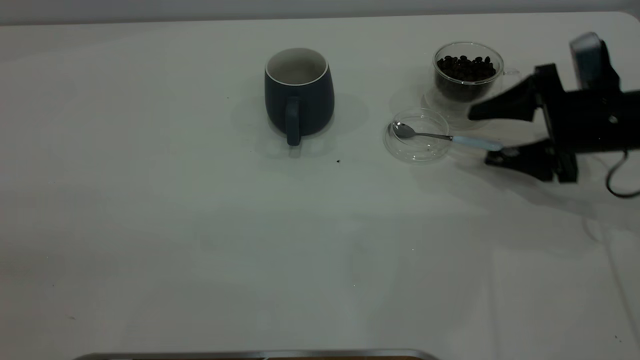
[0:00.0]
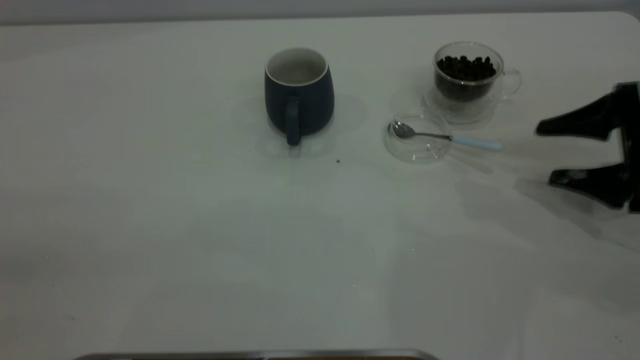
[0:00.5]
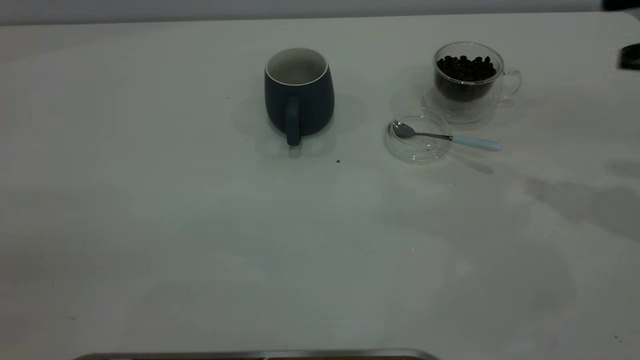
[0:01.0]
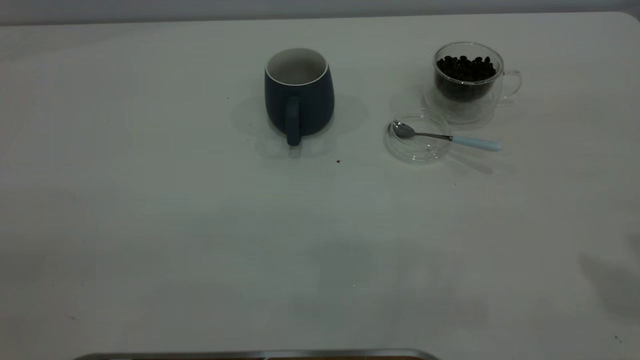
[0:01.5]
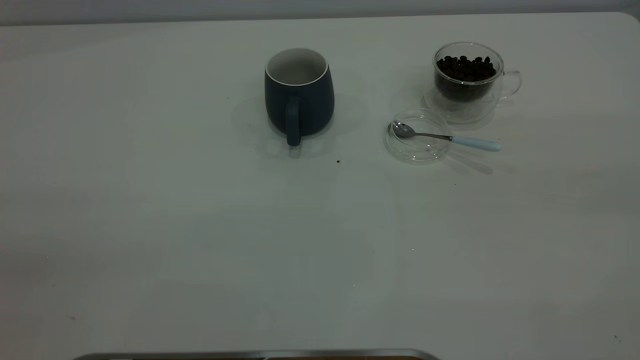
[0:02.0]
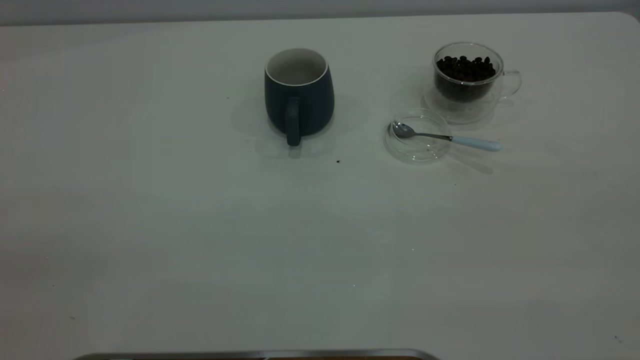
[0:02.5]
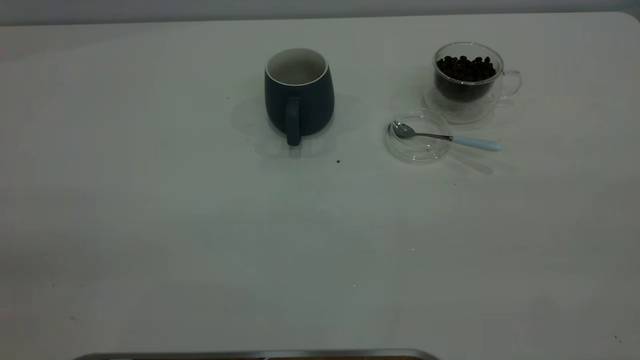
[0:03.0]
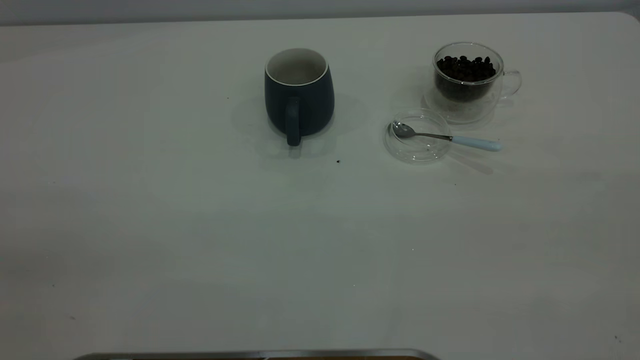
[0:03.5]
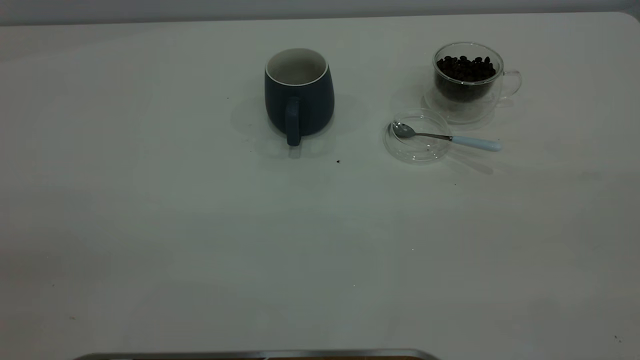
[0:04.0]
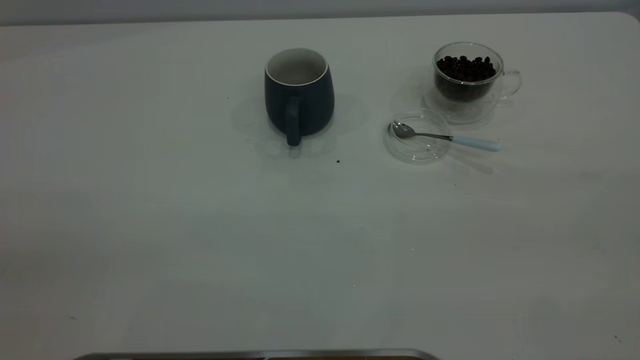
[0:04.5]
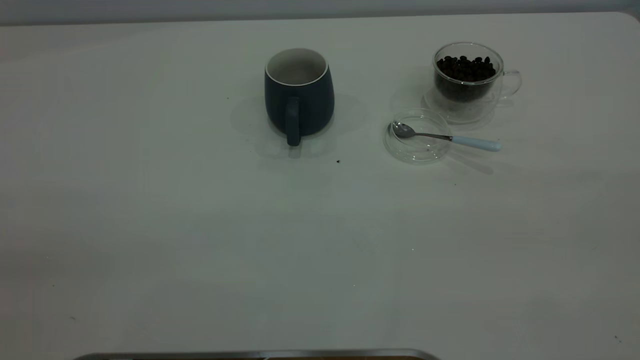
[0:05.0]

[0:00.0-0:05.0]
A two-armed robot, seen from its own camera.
Task of the whole recording: the left gripper place the grey cup in the center of the table, the right gripper take the blue spoon from the cup lid and scoop out the coffee beans from the coffee cup and put them into the grey cup, the right gripper put the spoon back into the cup lid.
0:00.0 to 0:02.5: The right gripper heads backward and upward, covering about 50 cm.

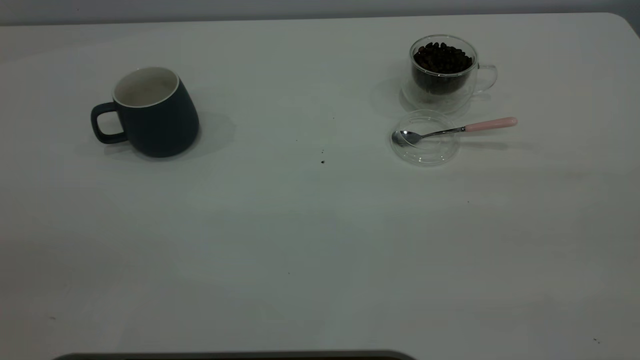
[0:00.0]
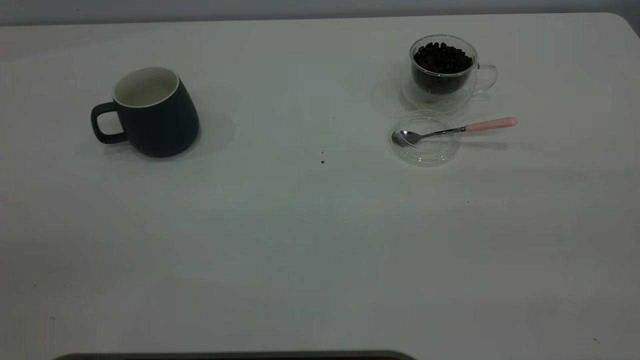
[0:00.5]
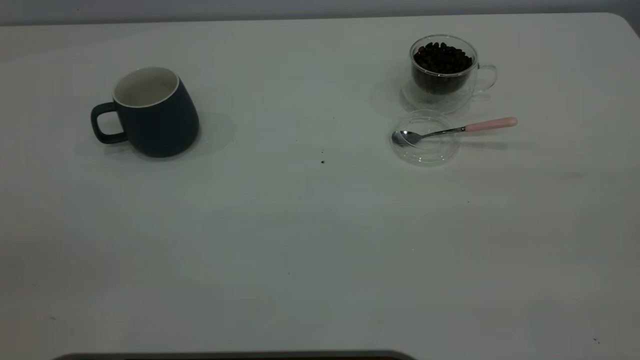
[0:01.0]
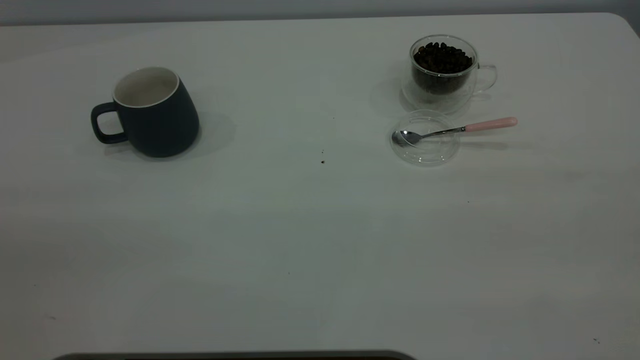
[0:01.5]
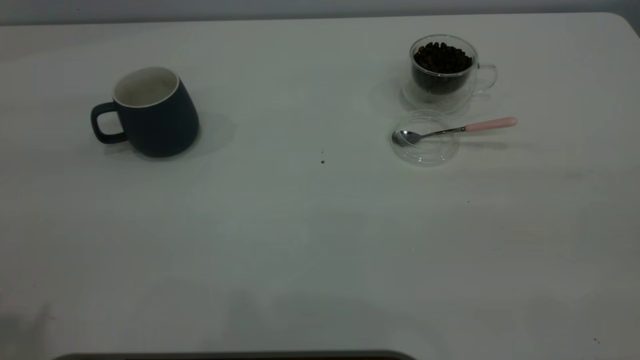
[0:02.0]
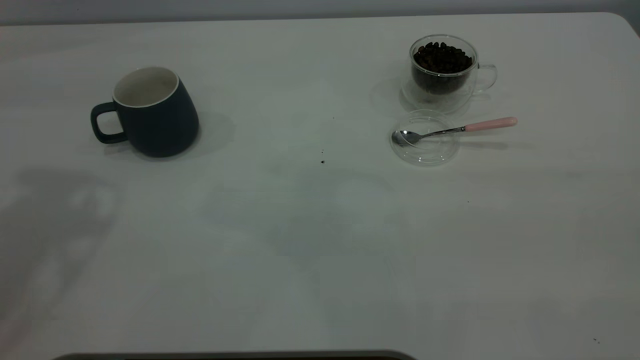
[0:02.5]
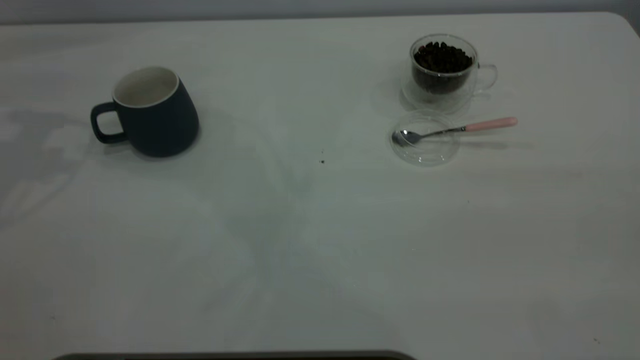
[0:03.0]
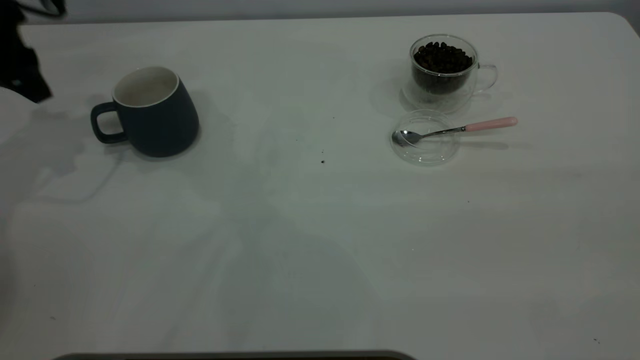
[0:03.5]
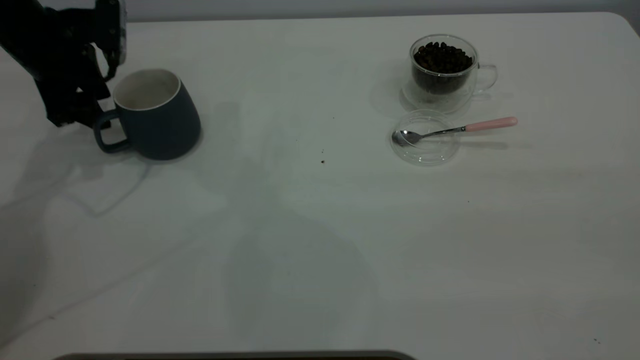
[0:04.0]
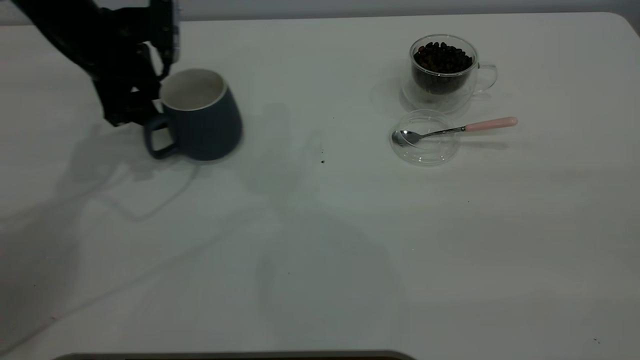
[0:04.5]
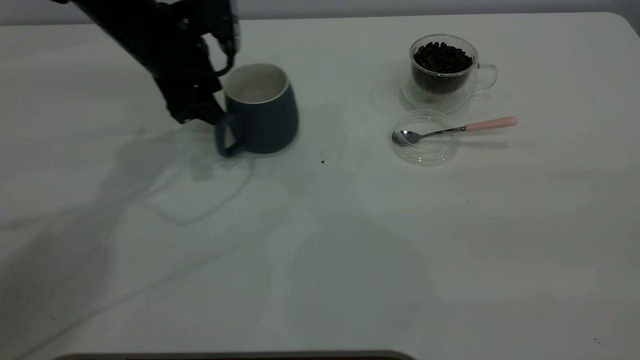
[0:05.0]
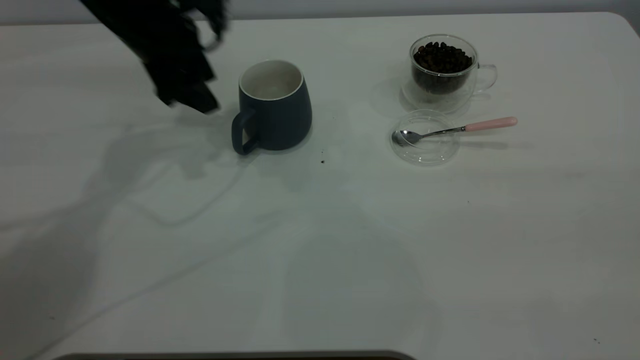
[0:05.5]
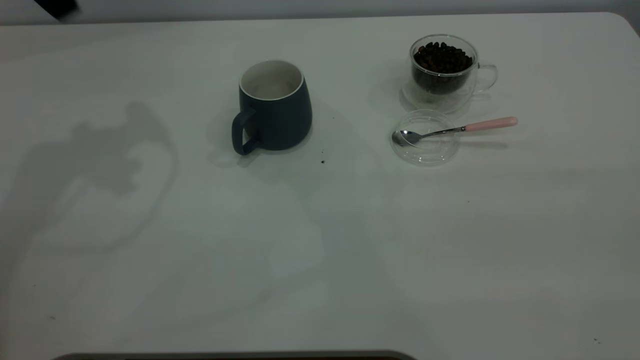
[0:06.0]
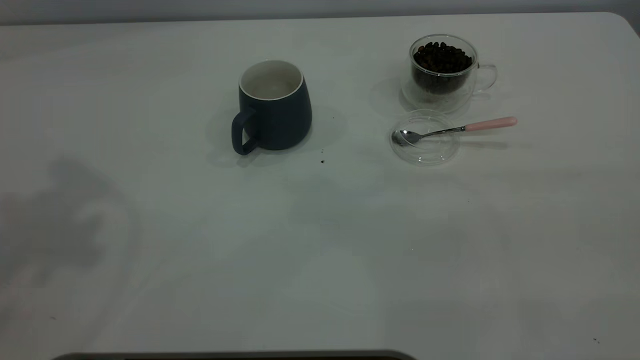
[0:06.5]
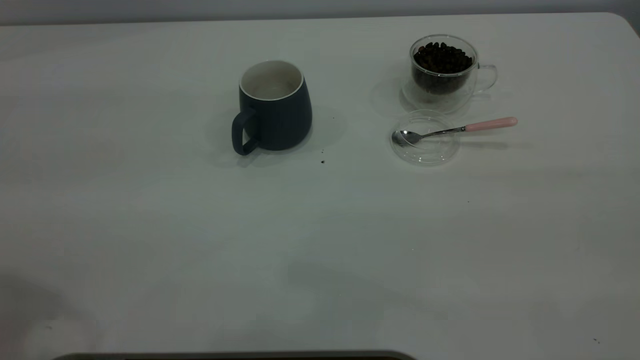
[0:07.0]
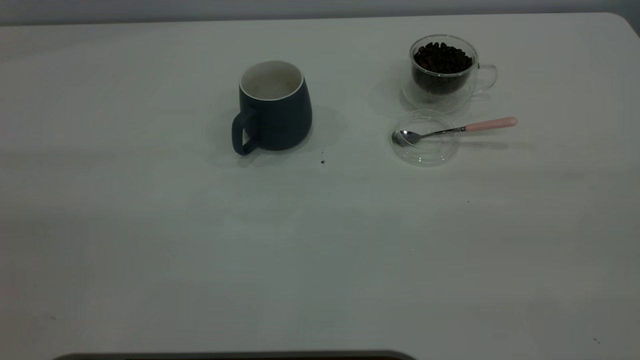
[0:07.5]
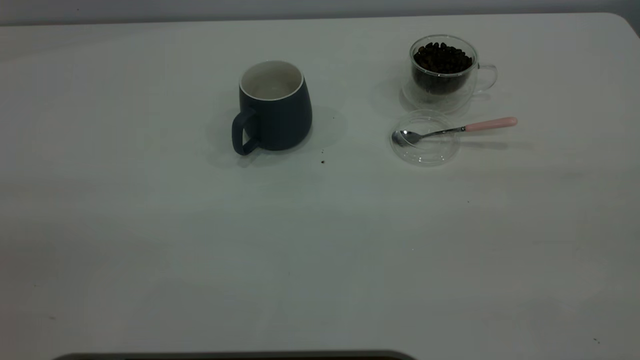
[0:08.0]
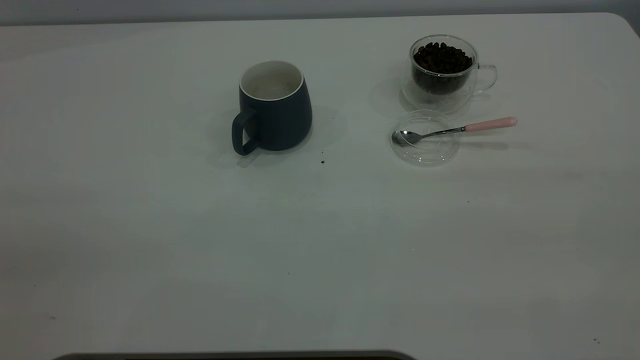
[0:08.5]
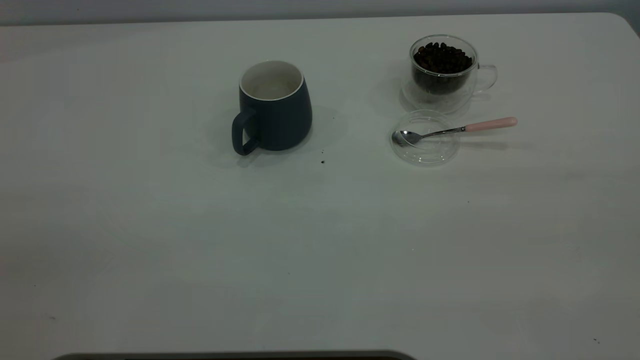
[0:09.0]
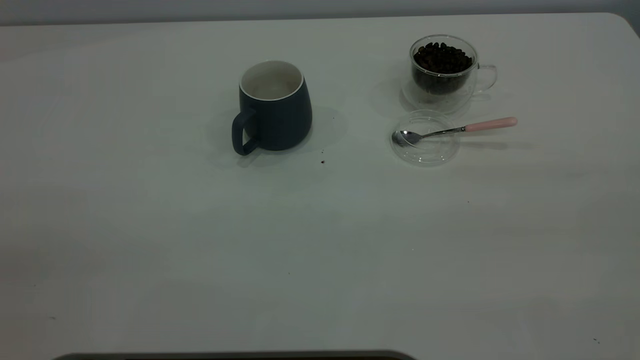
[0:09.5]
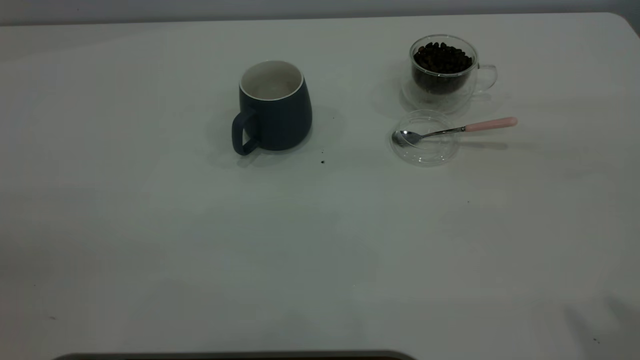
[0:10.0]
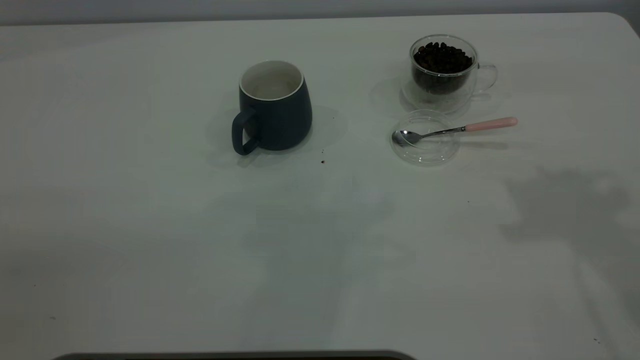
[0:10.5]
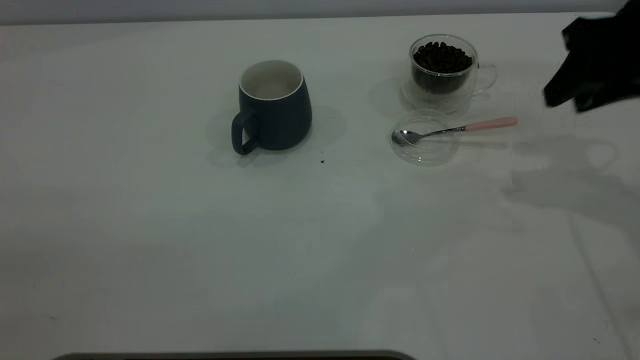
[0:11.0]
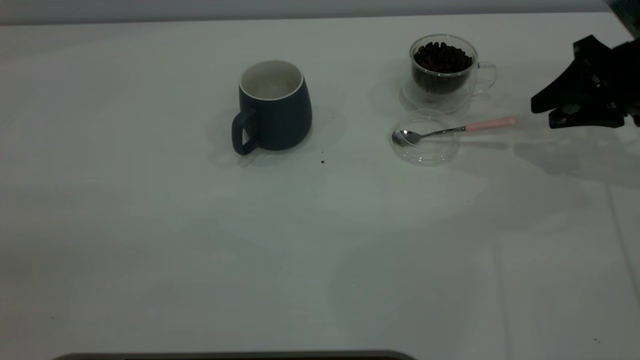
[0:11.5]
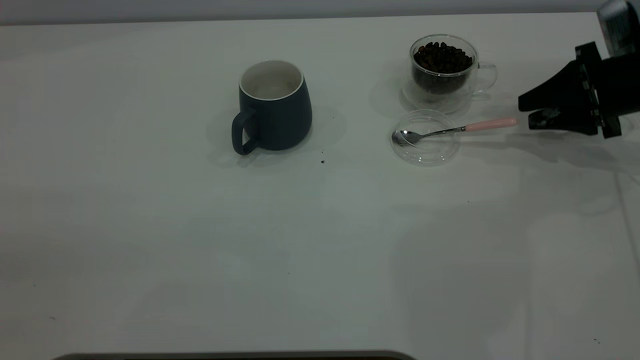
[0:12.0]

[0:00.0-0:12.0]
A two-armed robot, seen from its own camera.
Task of the whole recording: the left gripper place the grey cup in the center of the table, the right gripper take the pink spoon from the cup lid and scoop out the coffee beans from the coffee cup and put them into the grey cup, the right gripper put the spoon back into the cup lid.
Step, 0:00.0 to 0:05.0: Move the cup to the center of view.
0:02.0 to 0:04.0: The left gripper shifts about 40 cm forward and downward.
0:04.0 to 0:06.0: The left gripper goes about 20 cm upward.
0:10.0 to 0:12.0: The right gripper travels downward and forward by about 40 cm.

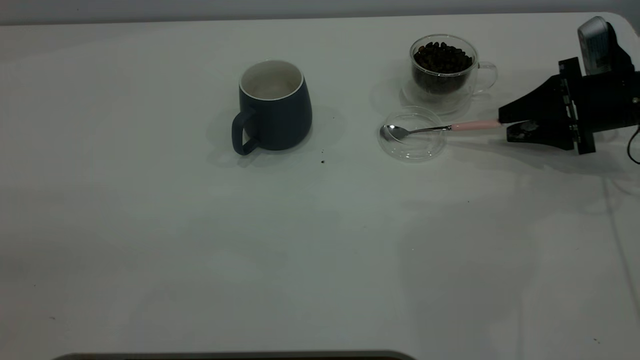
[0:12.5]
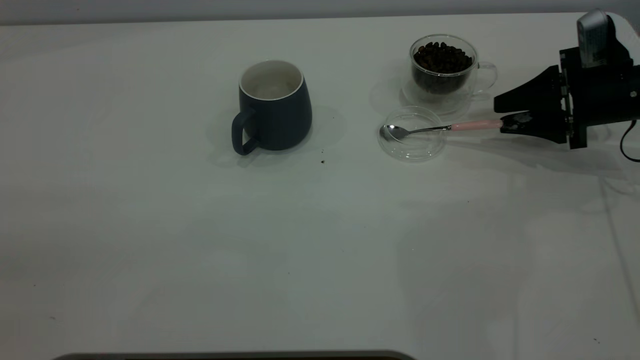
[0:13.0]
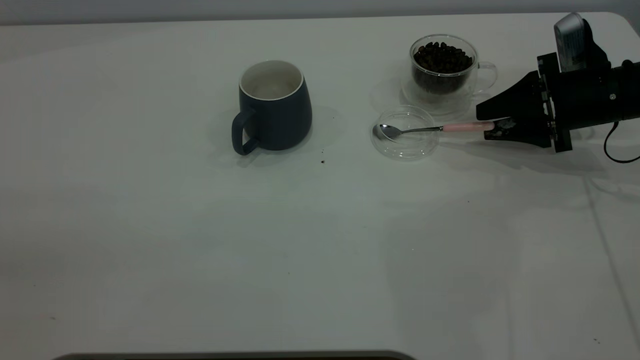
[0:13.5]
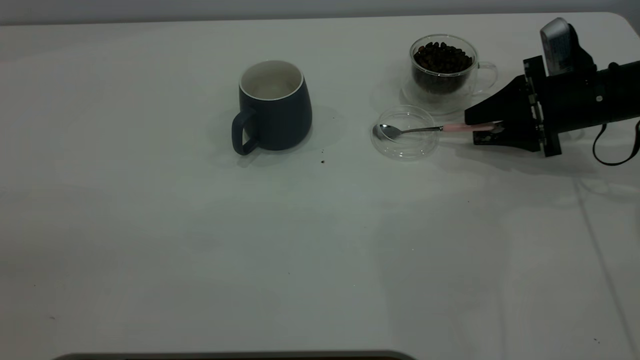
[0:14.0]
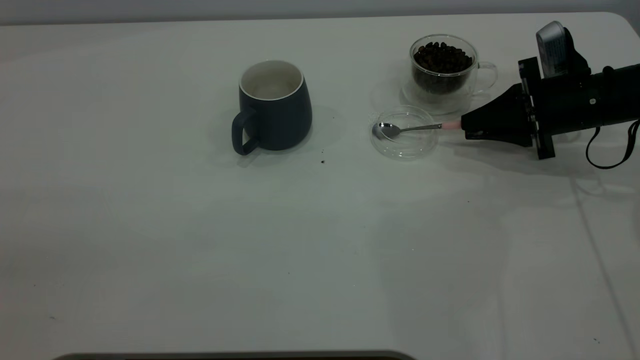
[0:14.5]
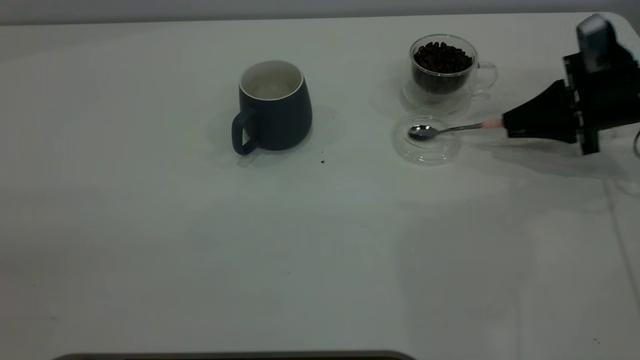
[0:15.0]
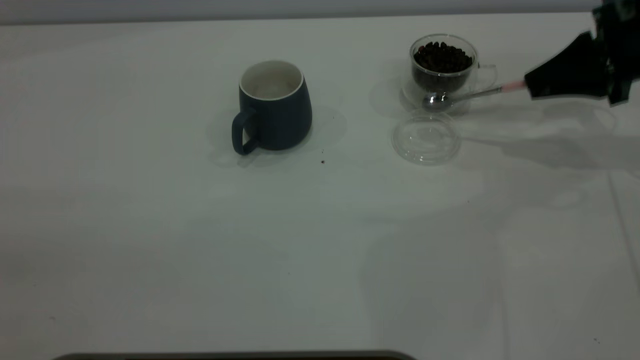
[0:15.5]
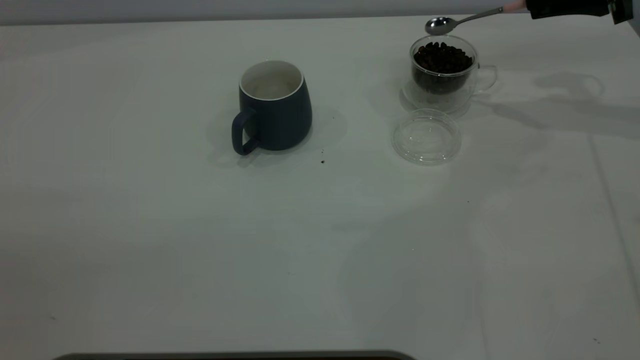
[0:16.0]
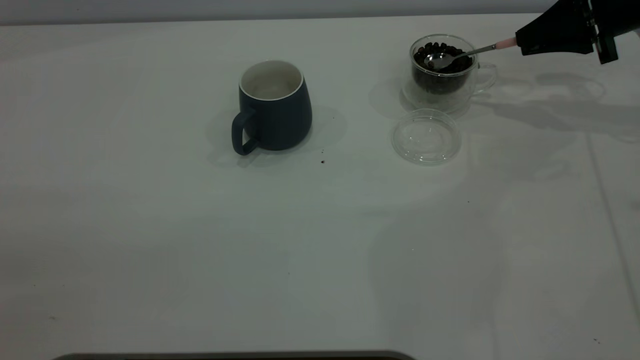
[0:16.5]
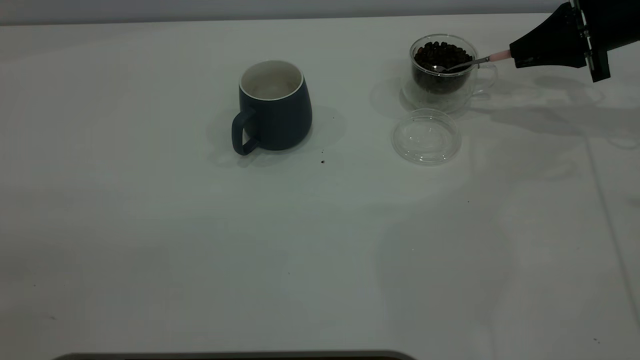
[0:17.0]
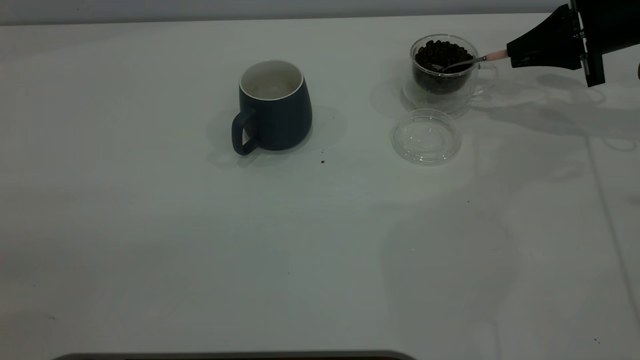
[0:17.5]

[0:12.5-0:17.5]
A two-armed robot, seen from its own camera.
Task of the whole recording: the left gripper place the grey cup in the center of the table, the right gripper take the pink spoon from the cup lid and scoop out the coffee beans from the coffee cup and put them into the grey cup, the right gripper put the spoon back into the cup lid.
Step, 0:12.5 to 0:15.0: Pick up the spoon.
0:12.5 to 0:15.0: The right gripper closes.
0:15.0 to 0:17.5: The right gripper is displaced forward and upward by about 10 cm.
